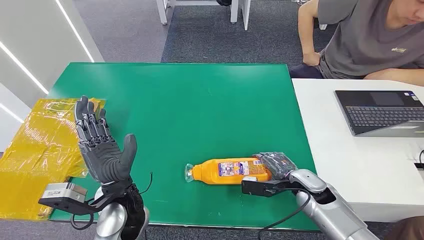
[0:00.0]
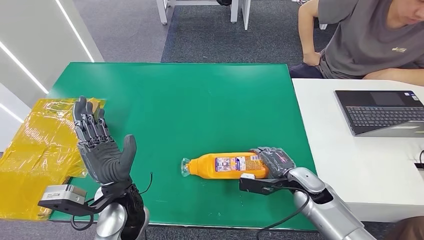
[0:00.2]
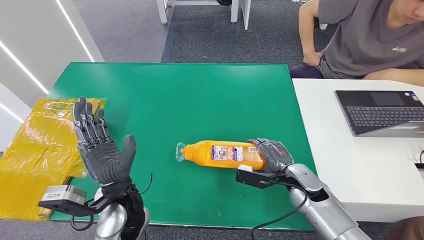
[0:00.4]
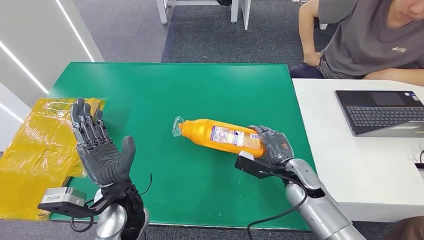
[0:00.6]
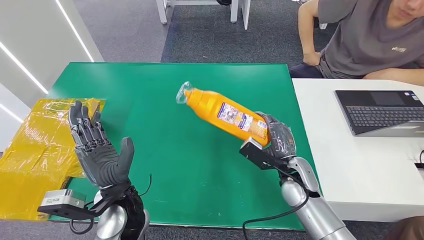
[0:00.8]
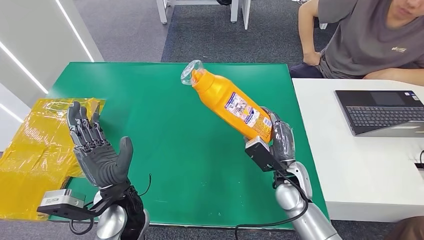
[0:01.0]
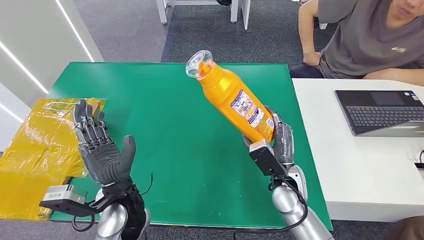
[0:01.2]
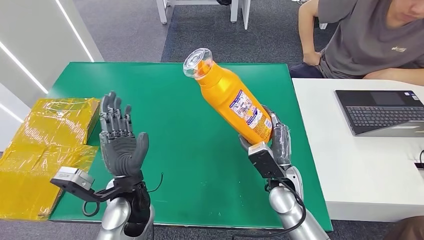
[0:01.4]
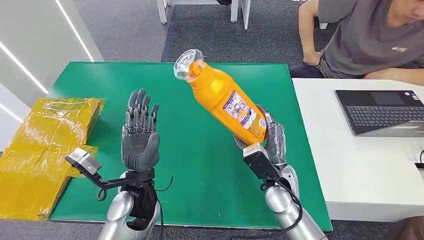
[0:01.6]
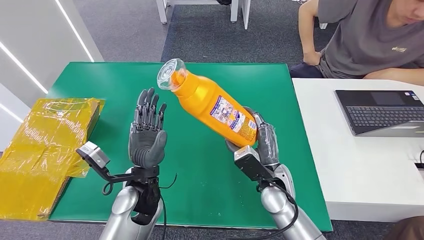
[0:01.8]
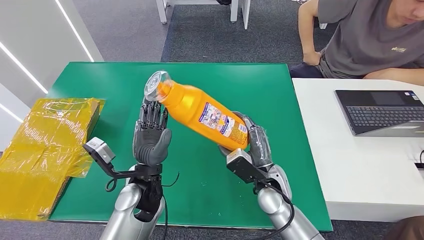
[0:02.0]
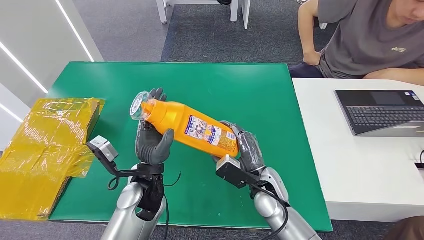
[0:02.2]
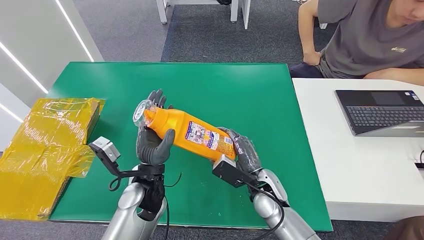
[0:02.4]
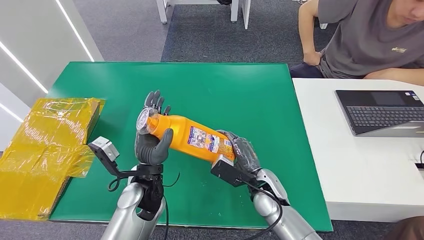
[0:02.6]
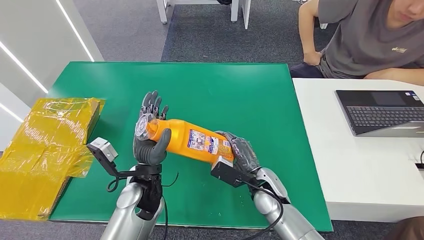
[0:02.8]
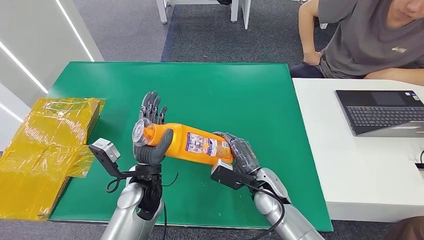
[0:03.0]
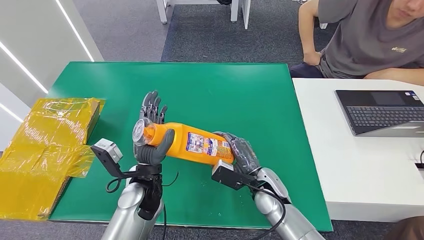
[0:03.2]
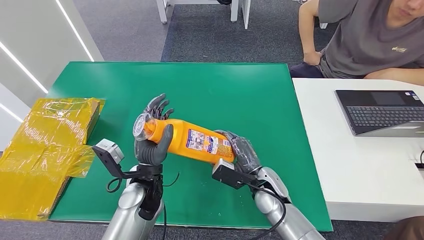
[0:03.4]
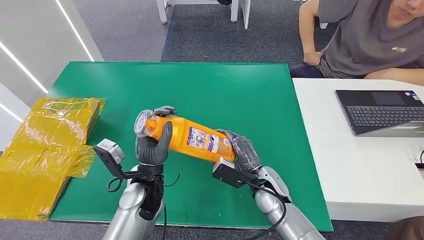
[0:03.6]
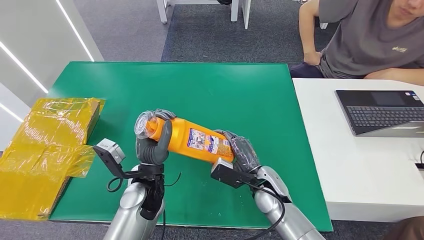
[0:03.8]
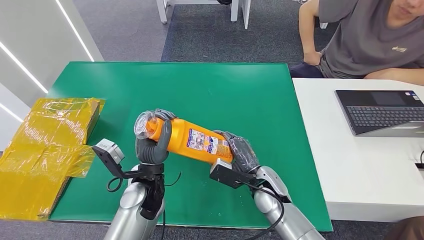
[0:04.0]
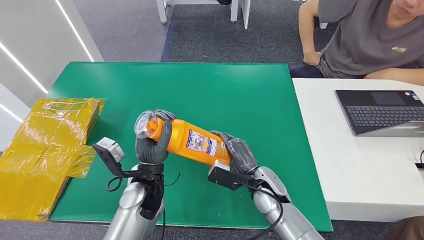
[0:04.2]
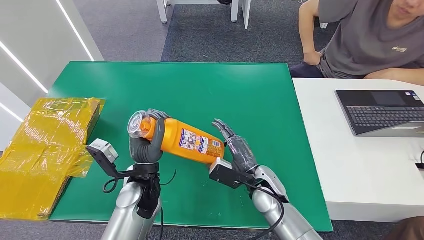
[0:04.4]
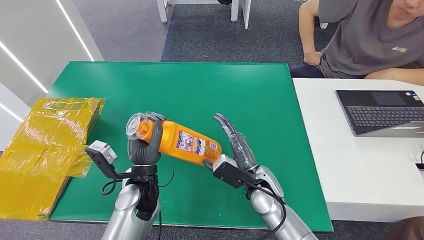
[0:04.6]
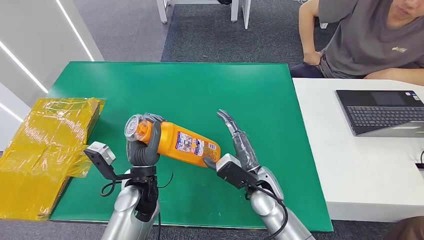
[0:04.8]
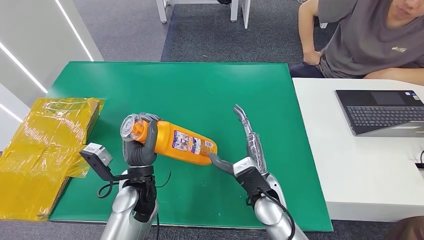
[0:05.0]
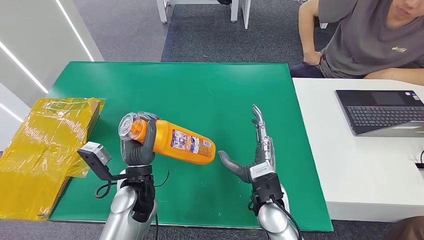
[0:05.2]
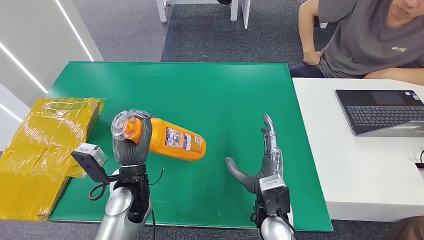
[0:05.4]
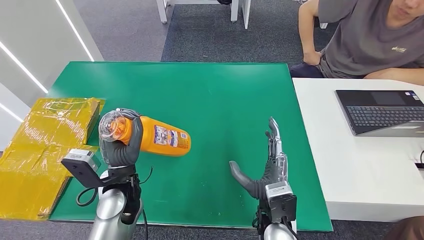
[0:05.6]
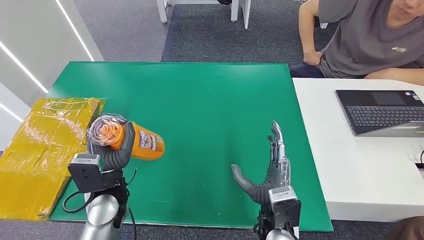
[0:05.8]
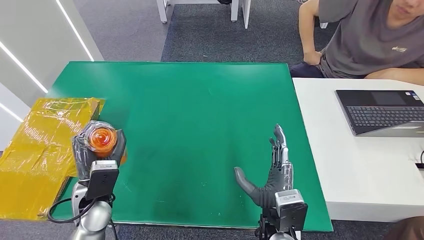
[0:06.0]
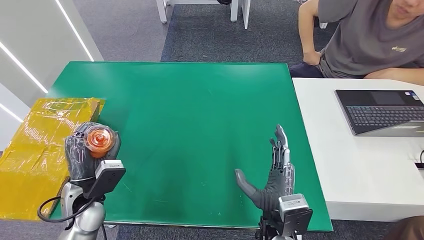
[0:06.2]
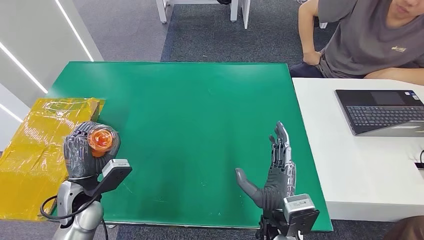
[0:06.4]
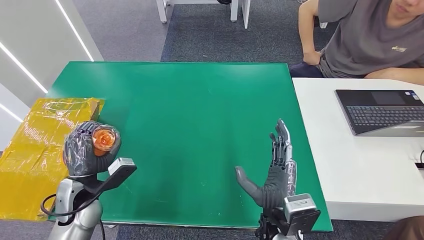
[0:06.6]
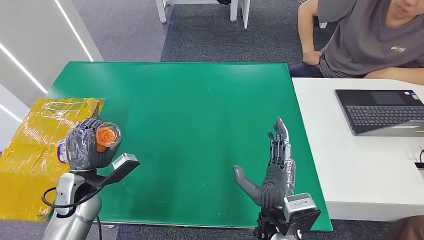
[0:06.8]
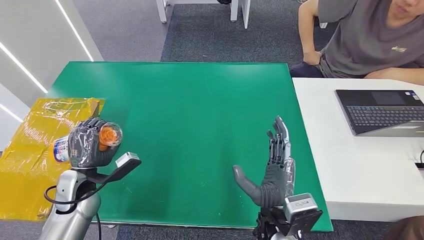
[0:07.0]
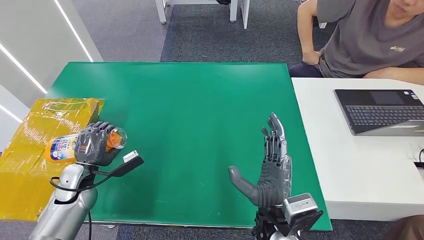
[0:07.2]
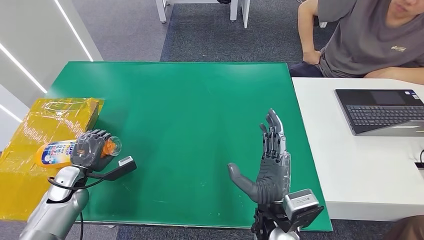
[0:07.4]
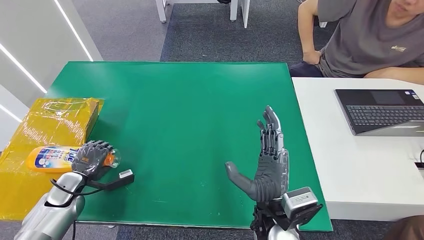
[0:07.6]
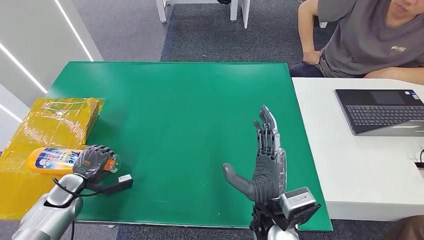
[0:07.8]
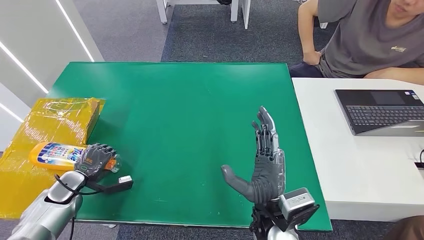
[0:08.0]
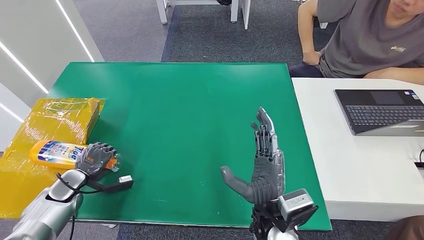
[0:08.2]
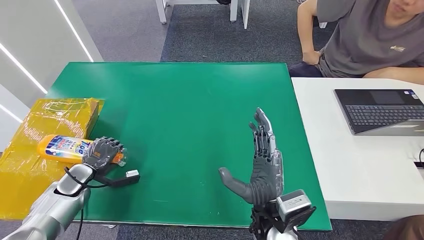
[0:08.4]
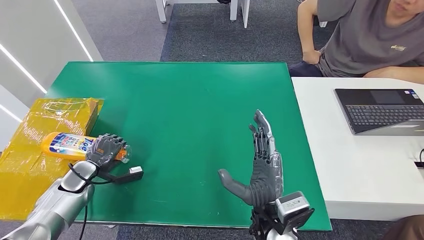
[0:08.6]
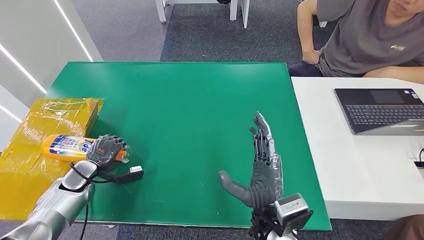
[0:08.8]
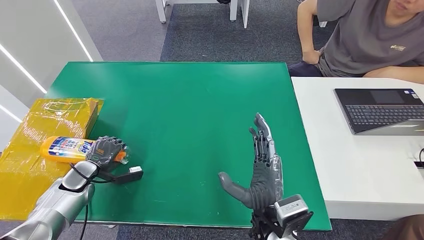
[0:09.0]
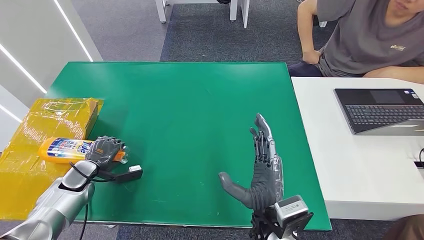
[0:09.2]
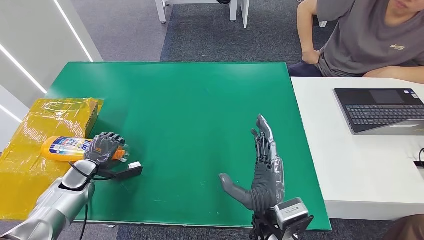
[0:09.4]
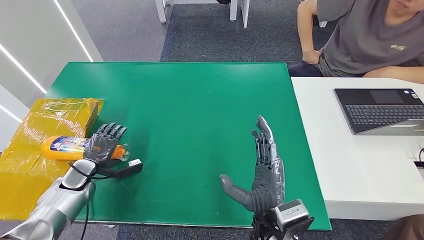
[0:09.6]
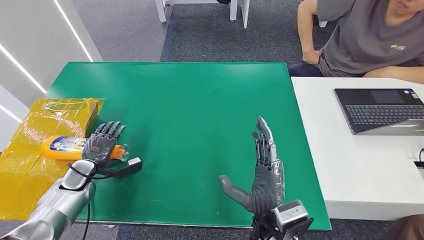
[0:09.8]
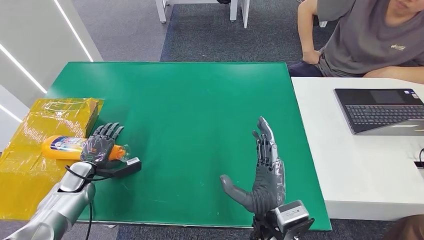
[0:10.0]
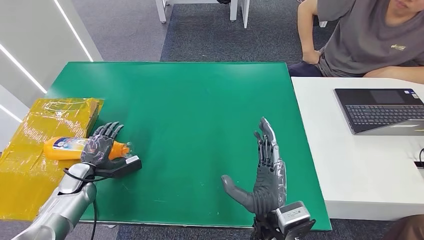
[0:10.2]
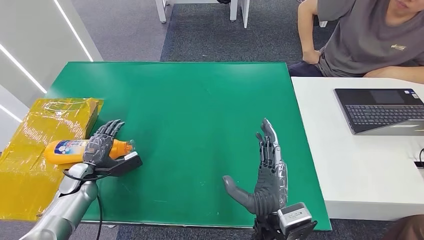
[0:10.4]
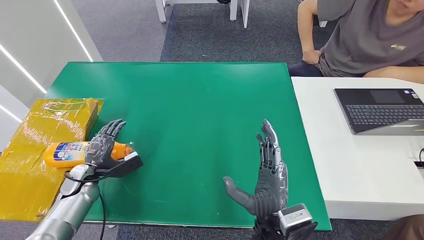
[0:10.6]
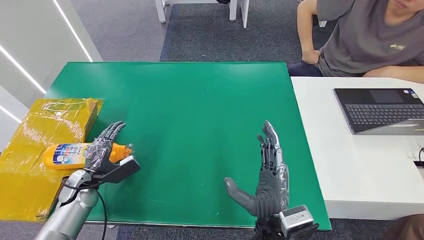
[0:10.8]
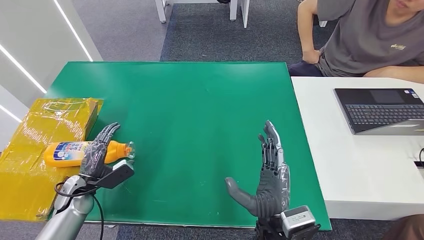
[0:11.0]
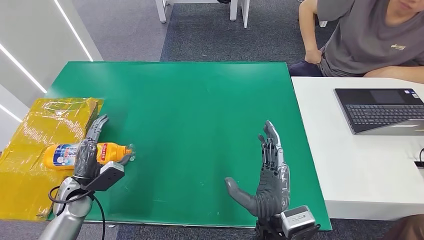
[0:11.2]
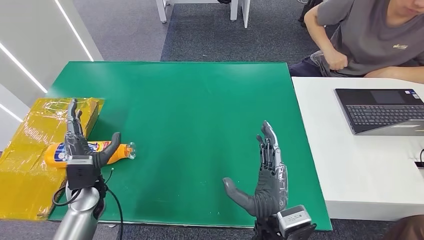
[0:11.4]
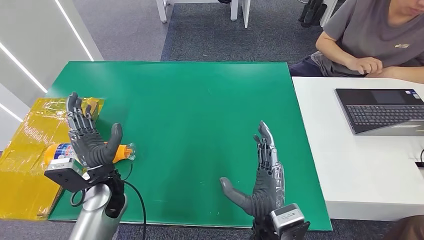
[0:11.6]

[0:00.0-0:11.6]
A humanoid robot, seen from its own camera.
Step, 0:00.0 to 0:02.6: Pick up the bottle from the table.
Step, 0:02.8 to 0:11.6: Turn the bottle to the front side.
0:02.8 to 0:04.4: The hands move only a little.
0:04.4 to 0:05.8: The left hand goes roughly 5 cm to the left. The right hand moves backward, approximately 10 cm.
0:05.8 to 0:07.2: The left hand moves to the left and downward, some 15 cm.
0:07.2 to 0:08.8: The left hand travels to the left by roughly 5 cm.
0:08.8 to 0:10.2: There are only small adjustments of the hands.
0:10.2 to 0:11.6: The left hand travels to the right and upward by roughly 20 cm.

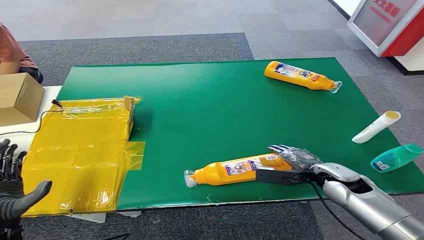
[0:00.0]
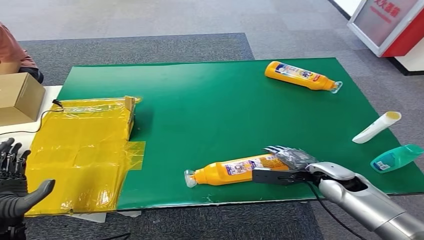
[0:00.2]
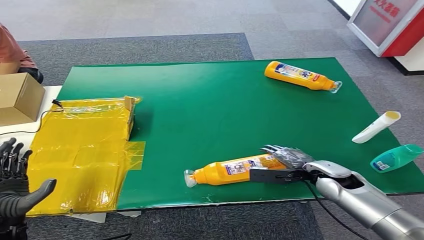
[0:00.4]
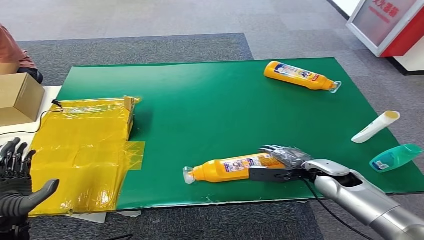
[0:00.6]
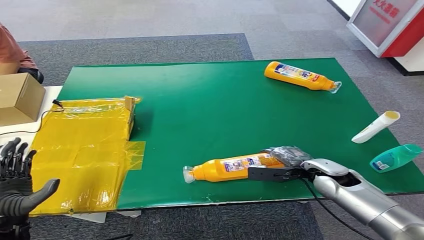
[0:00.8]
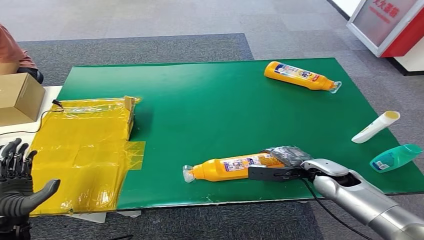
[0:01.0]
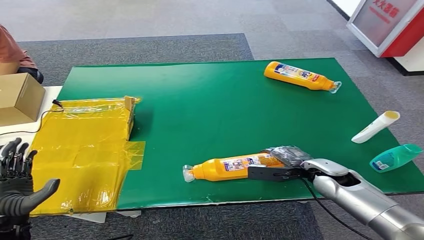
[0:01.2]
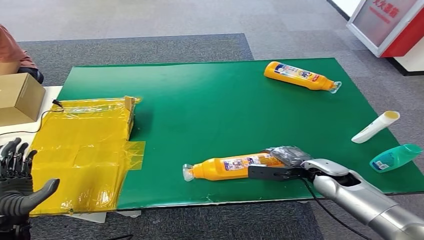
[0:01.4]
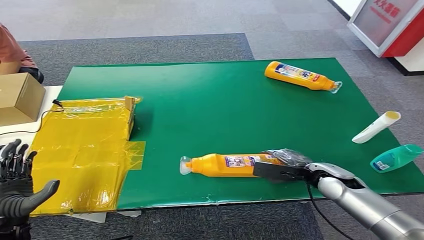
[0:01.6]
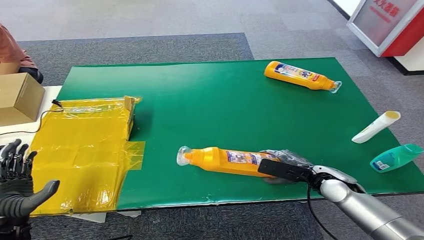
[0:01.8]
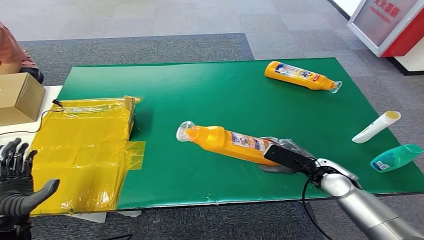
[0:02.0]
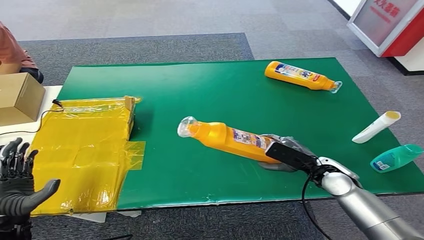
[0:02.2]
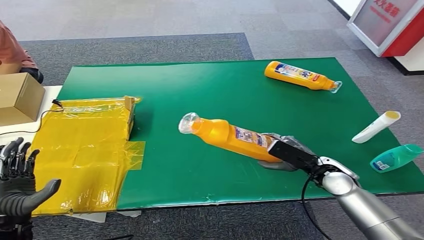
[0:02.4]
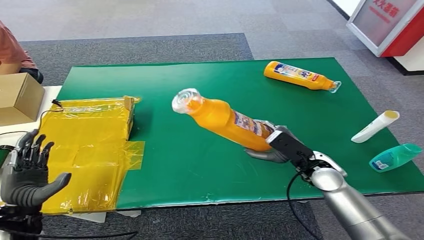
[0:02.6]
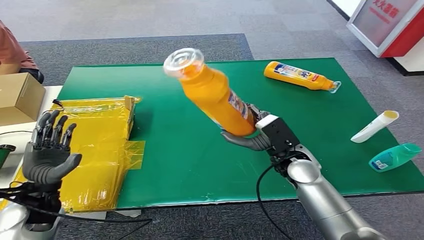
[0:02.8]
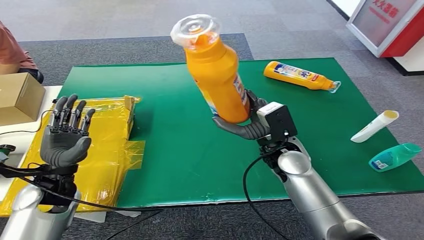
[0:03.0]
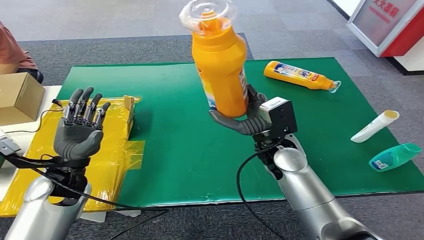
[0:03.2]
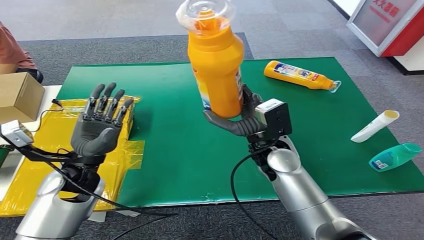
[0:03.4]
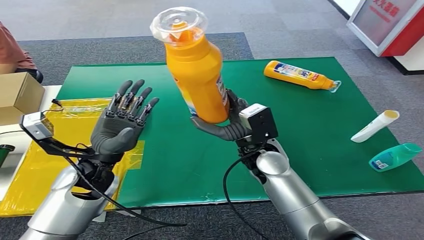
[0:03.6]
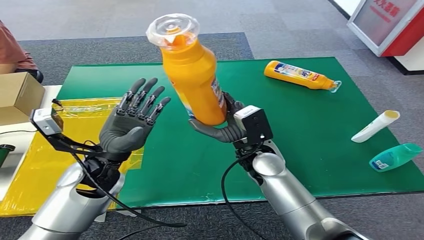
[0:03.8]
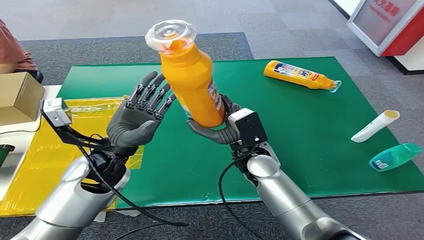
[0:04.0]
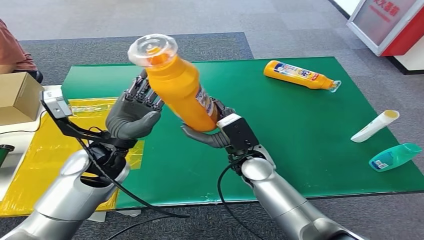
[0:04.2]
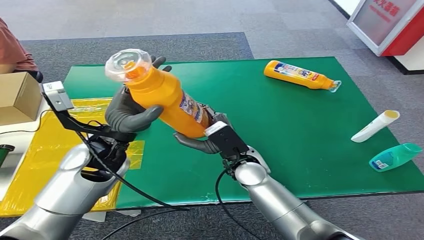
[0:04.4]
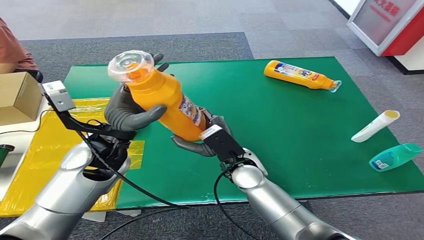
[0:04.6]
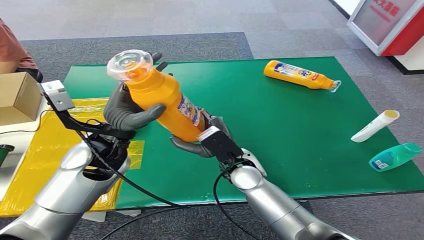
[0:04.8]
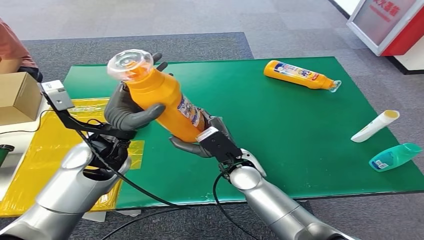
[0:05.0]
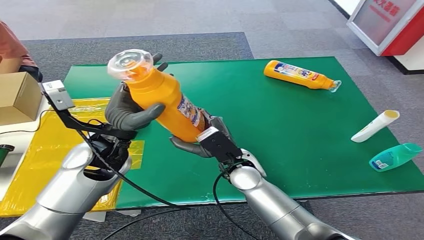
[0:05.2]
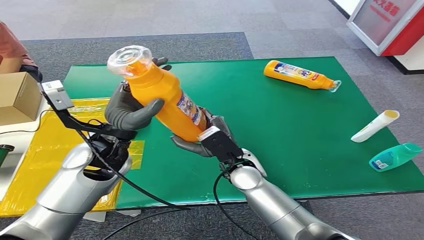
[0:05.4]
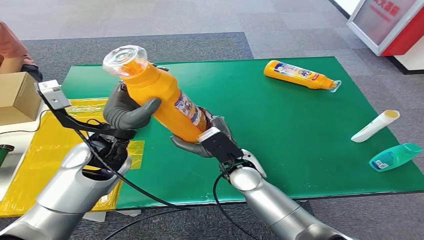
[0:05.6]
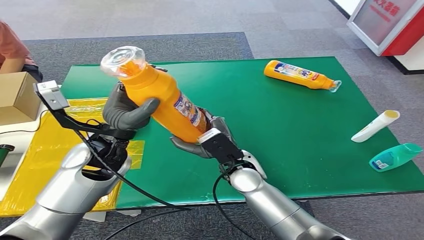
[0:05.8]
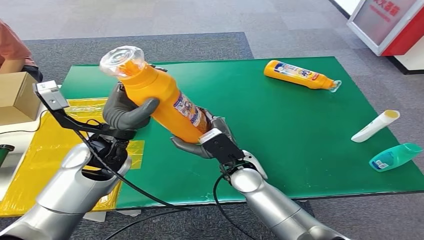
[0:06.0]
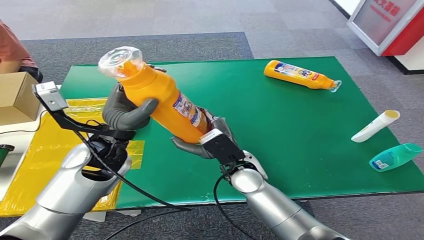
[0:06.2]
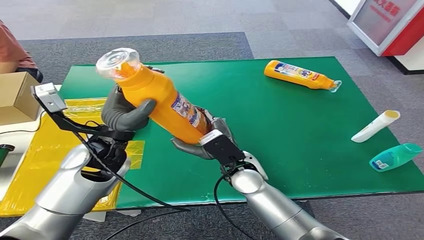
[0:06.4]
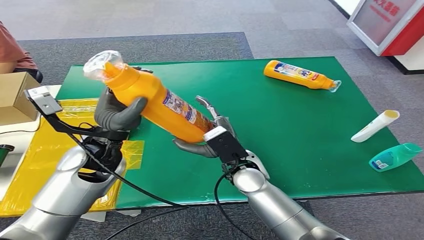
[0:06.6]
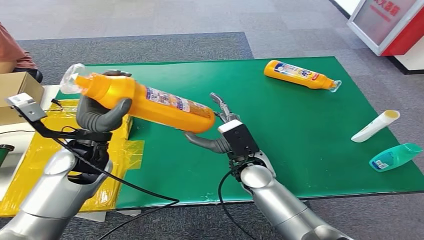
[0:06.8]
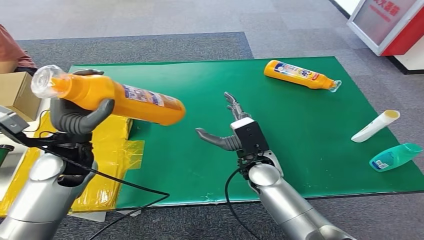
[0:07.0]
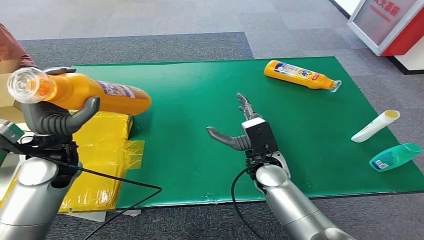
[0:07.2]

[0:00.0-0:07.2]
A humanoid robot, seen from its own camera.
Step, 0:00.0 to 0:02.8: Pick up the bottle from the table.
0:04.4 to 0:05.8: The hands stay close to where they were, moving slightly.
